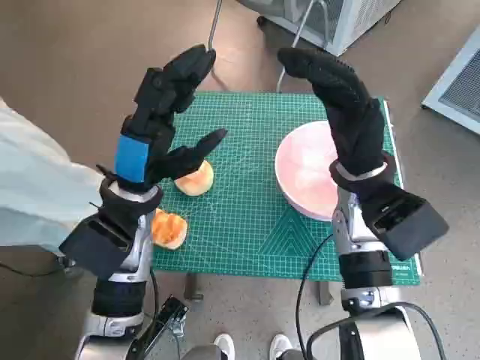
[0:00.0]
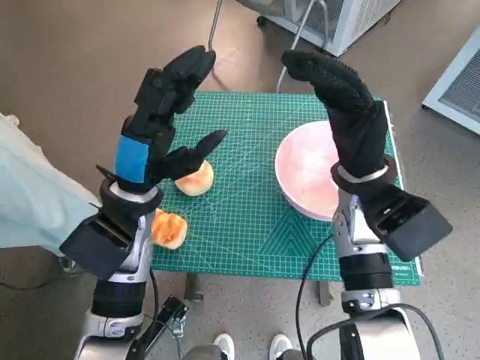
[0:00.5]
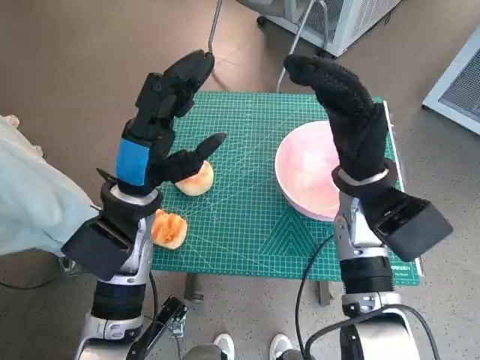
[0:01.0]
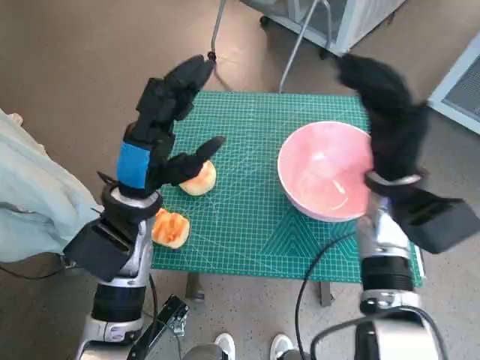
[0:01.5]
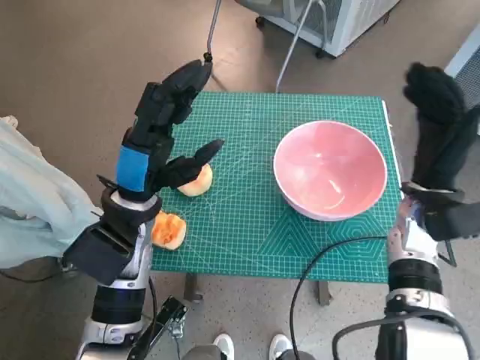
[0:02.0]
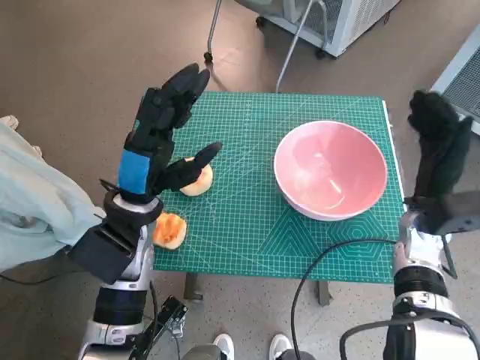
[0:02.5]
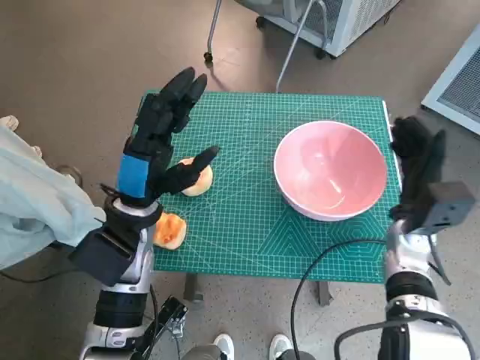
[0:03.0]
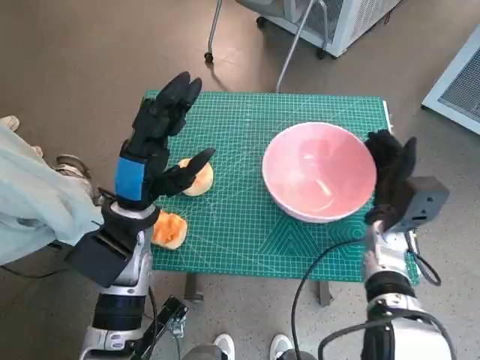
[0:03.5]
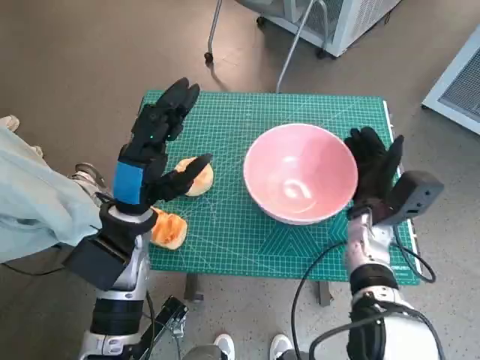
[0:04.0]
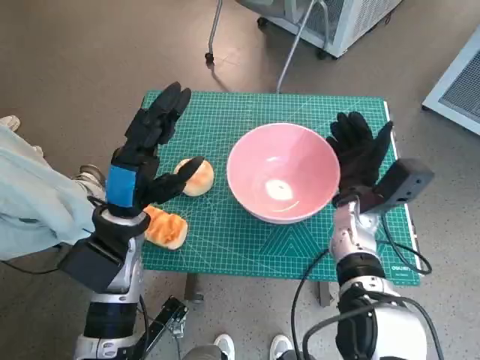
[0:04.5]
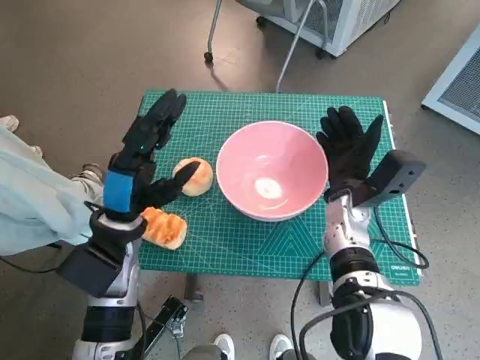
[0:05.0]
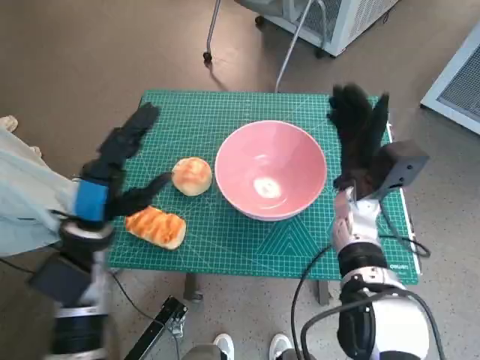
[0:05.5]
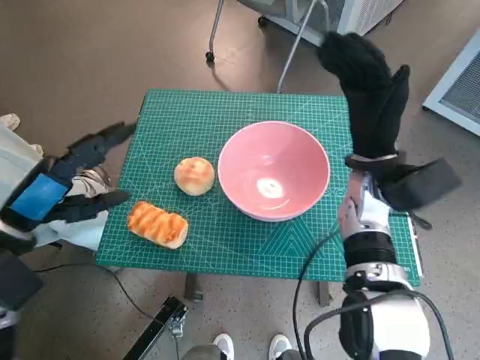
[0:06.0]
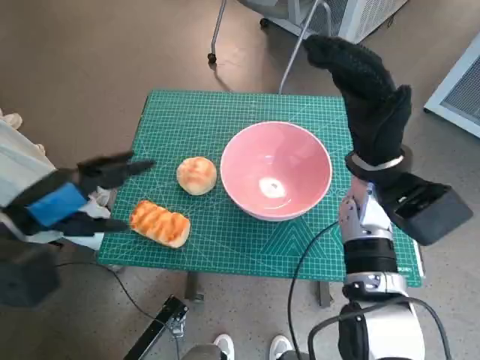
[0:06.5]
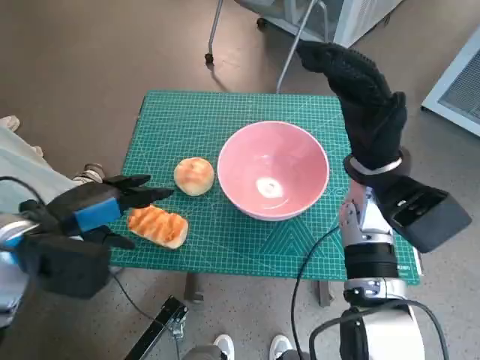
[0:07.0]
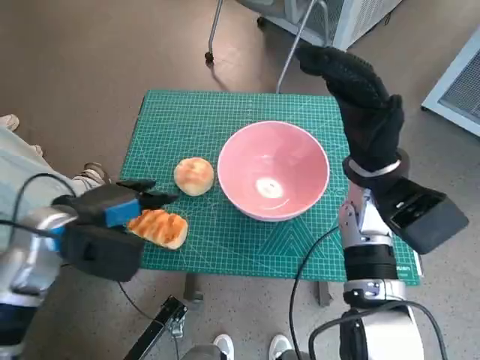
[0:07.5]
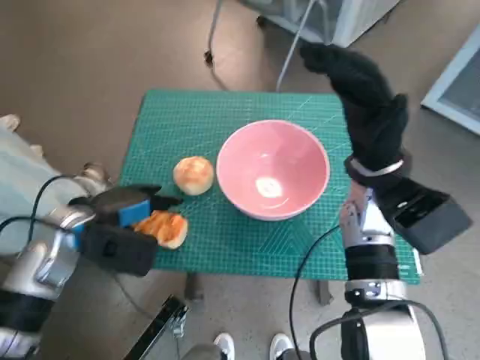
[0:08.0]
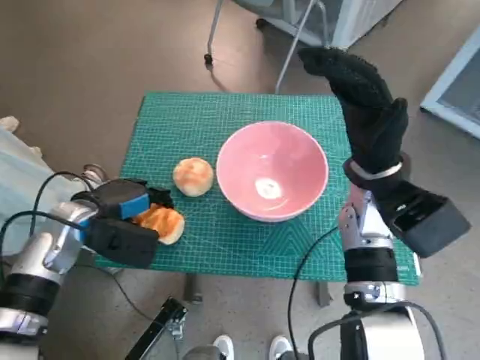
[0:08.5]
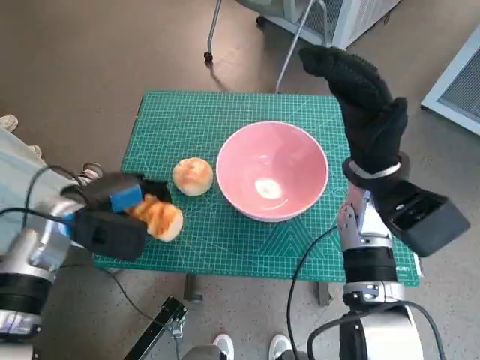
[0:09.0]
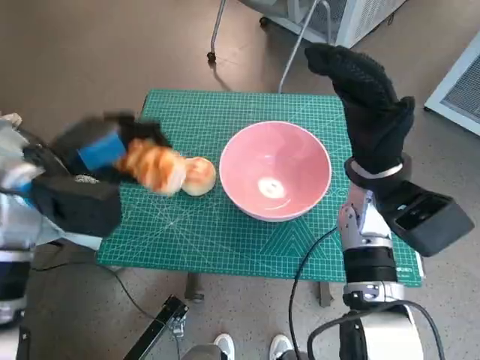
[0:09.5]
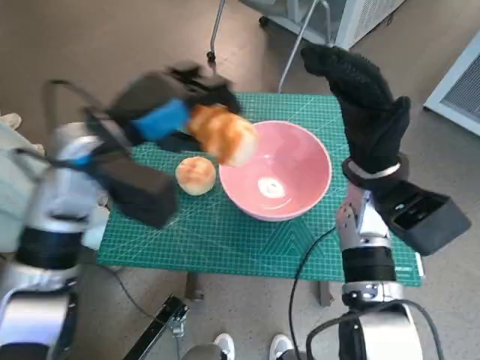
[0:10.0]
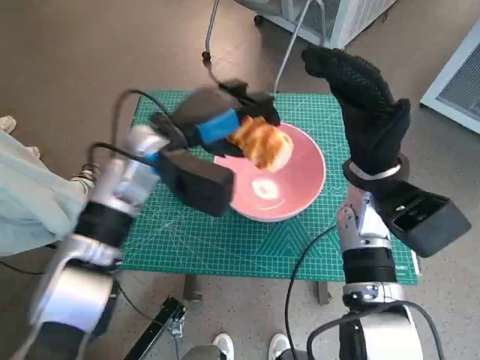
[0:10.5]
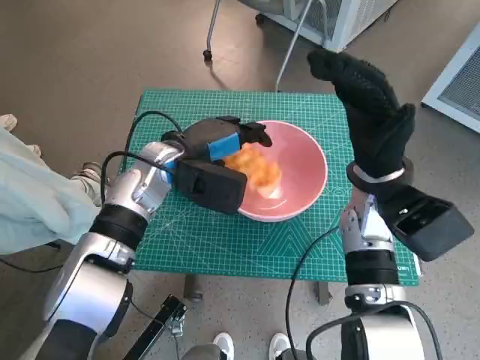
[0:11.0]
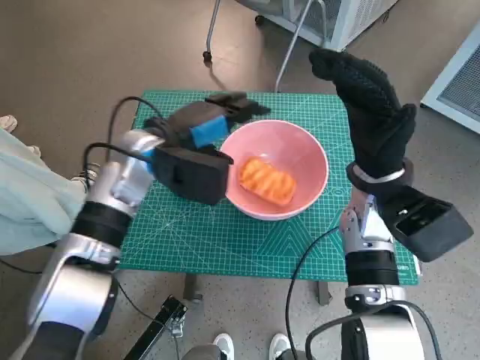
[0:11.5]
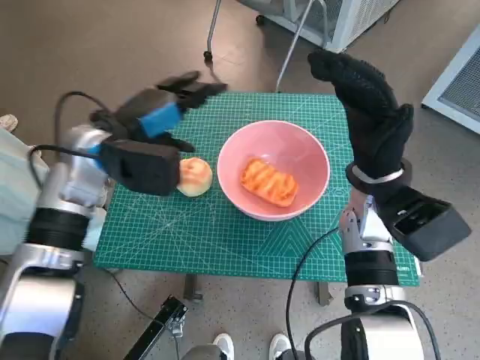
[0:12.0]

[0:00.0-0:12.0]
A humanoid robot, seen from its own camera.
Task of the whole recording: Push the bowl to the center of the table and put the bread into the bowl.
Step, 0:00.0 to 0:05.0: Move the pink bowl to the center of table with right hand.
Step, 0:05.5 to 0:08.0: Grasp the long bread with left hand.
Step, 0:08.5 to 0:11.0: Place the long bread in pink bowl with left hand.
0:02.0 to 0:04.0: The right hand shifts approximately 10 cm downward.
0:04.0 to 0:06.0: The right hand moves upward, approximately 10 cm, while the left hand goes roughly 10 cm to the left.
0:06.0 to 0:08.0: The left hand shifts by some 10 cm.
0:08.0 to 0:10.0: The left hand goes roughly 15 cm upward and to the right.

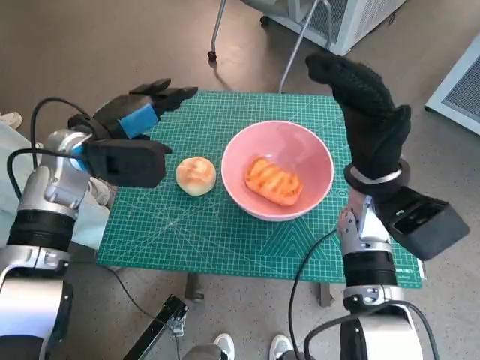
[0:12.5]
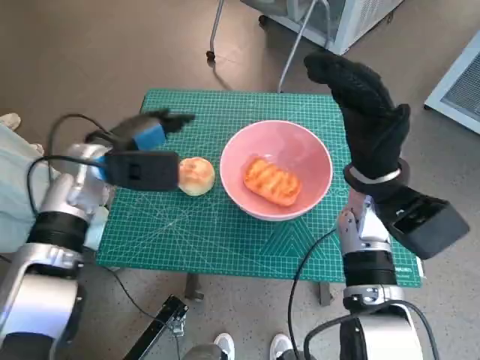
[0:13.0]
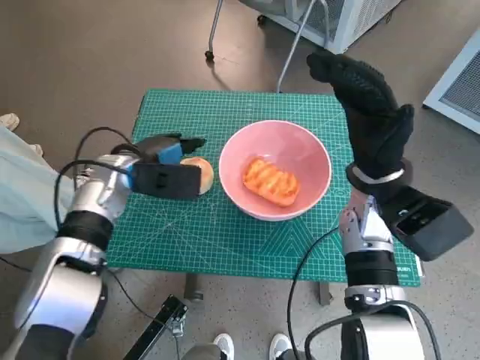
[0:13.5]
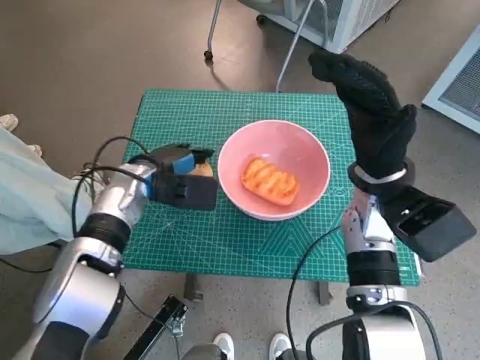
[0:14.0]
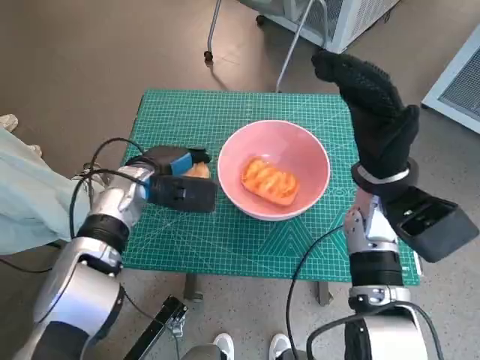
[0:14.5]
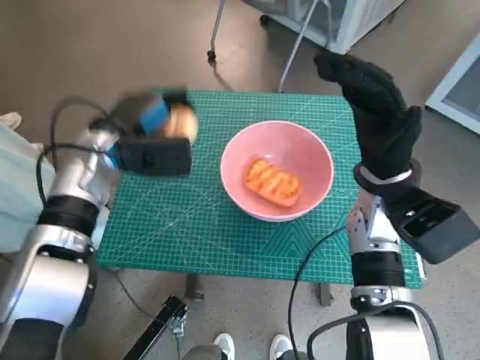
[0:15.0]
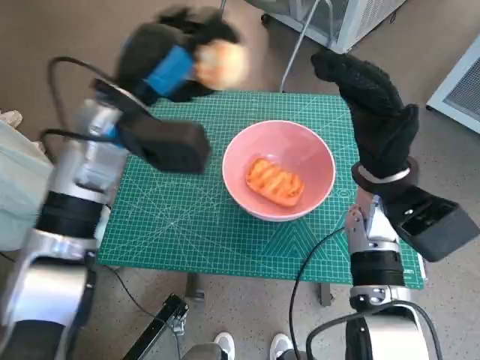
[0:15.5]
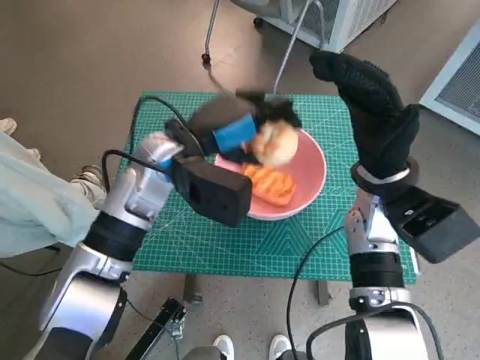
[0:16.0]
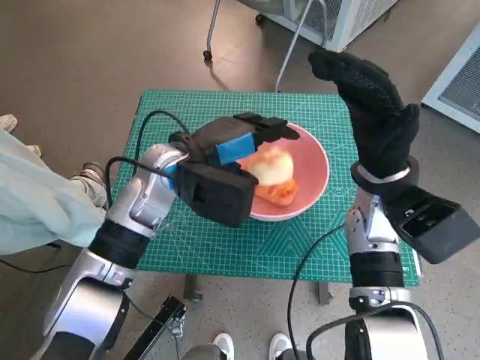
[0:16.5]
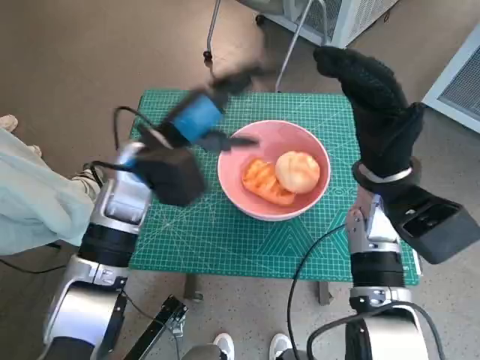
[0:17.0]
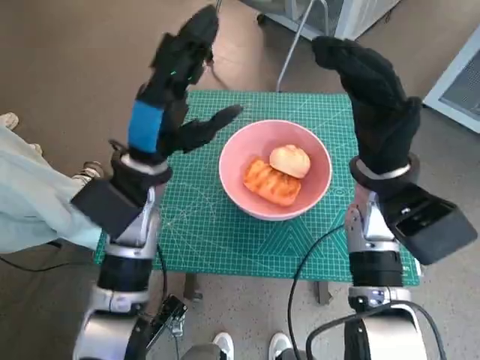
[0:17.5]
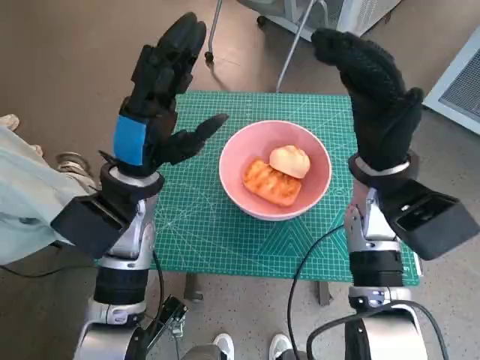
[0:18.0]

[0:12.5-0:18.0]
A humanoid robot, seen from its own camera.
Task of the whole recording: Push the bowl to the center of the table and put the bread into the bowl.
Step, 0:12.5 to 0:14.5: Grasp the round bread with left hand.
Step, 0:15.0 to 0:16.5: Place the round bread in pink bowl with left hand.
0:12.5 to 0:14.5: The left hand is displaced downward by roughly 10 cm.
0:14.5 to 0:16.0: The left hand is displaced upward and to the right by about 10 cm.
0:16.0 to 0:18.0: The left hand moves roughly 5 cm.

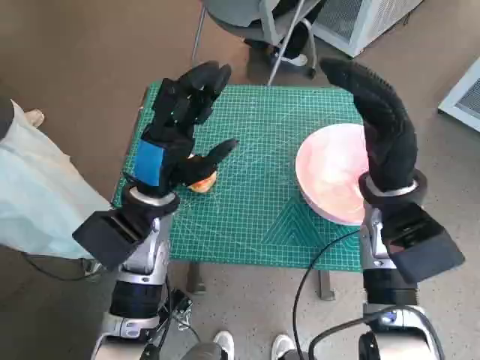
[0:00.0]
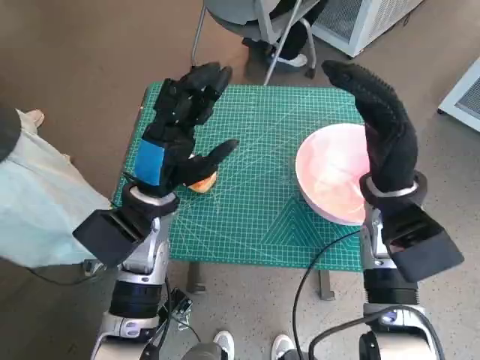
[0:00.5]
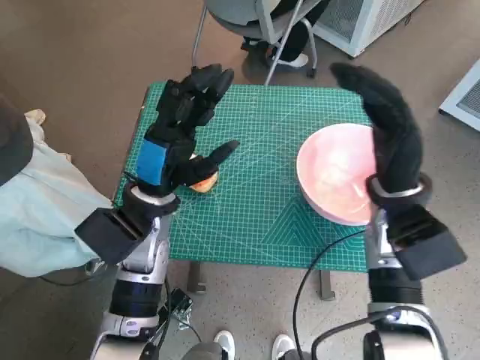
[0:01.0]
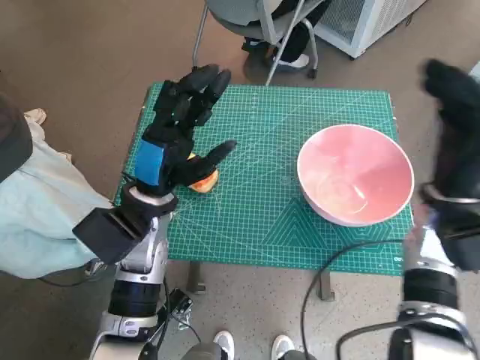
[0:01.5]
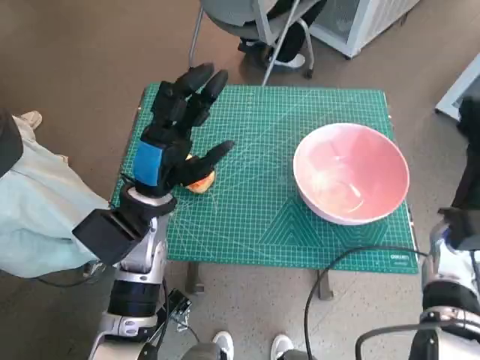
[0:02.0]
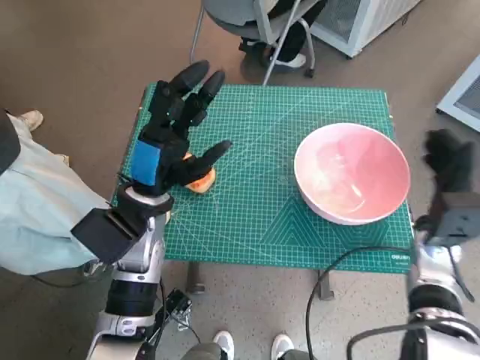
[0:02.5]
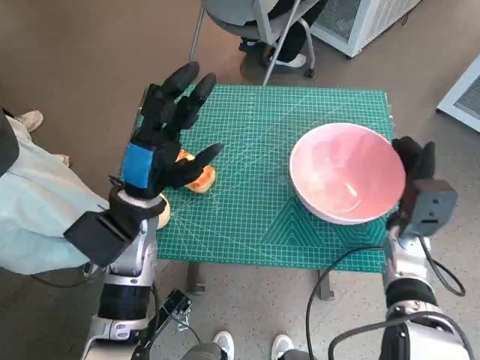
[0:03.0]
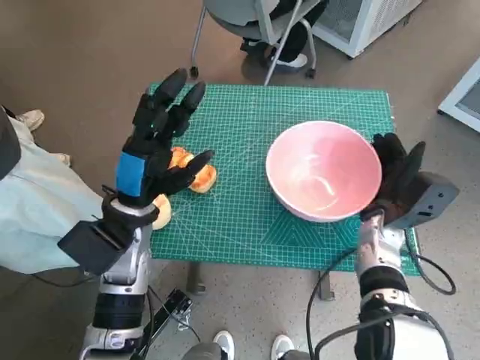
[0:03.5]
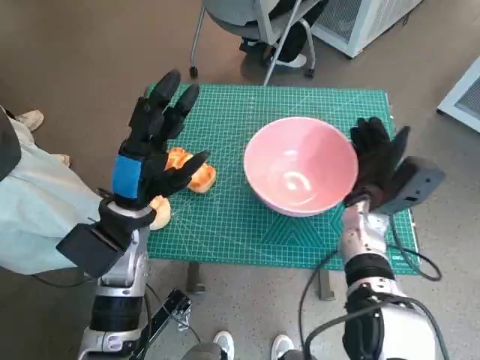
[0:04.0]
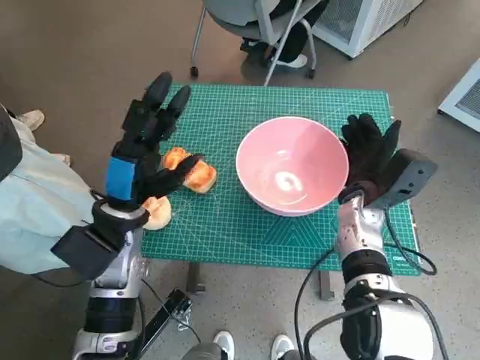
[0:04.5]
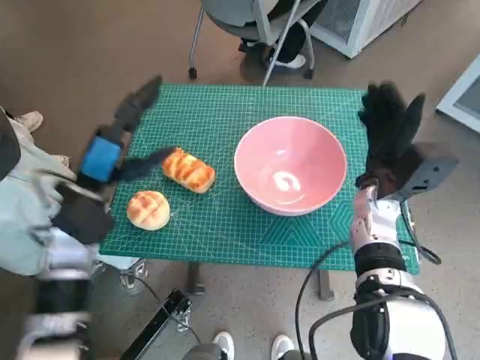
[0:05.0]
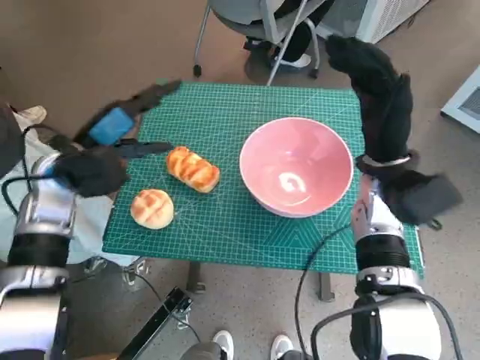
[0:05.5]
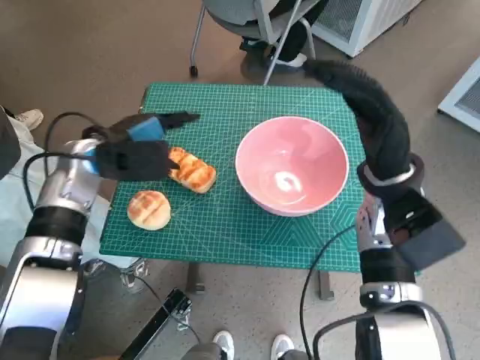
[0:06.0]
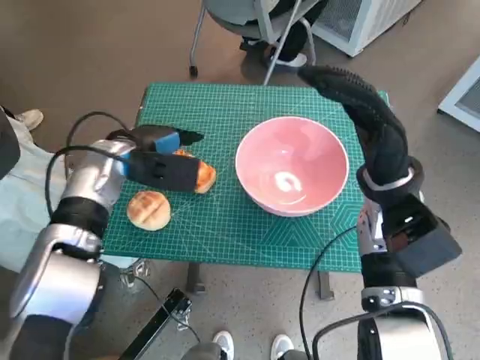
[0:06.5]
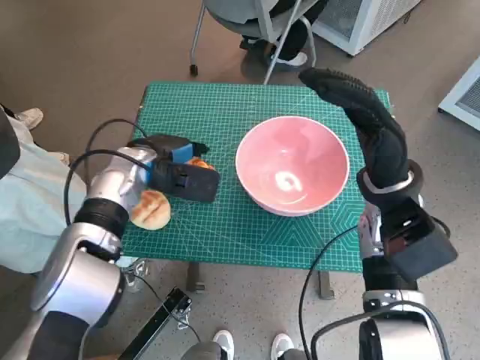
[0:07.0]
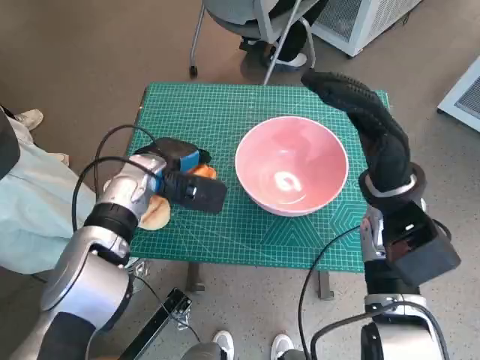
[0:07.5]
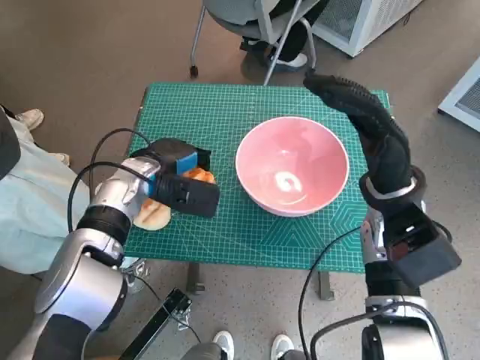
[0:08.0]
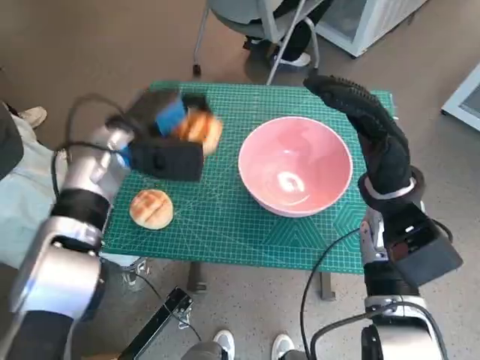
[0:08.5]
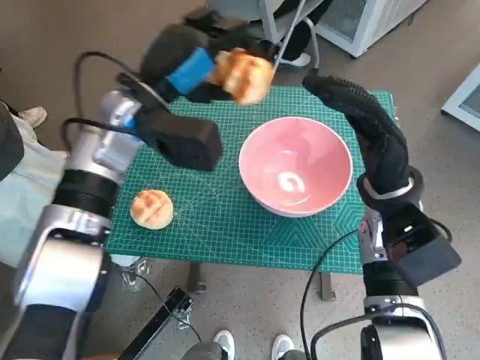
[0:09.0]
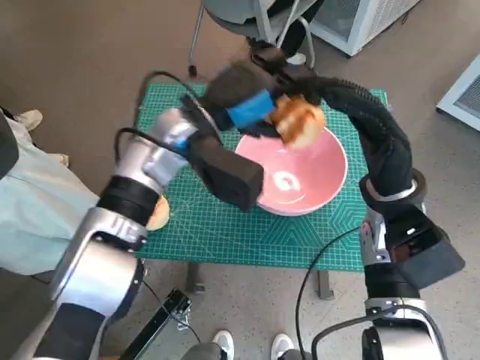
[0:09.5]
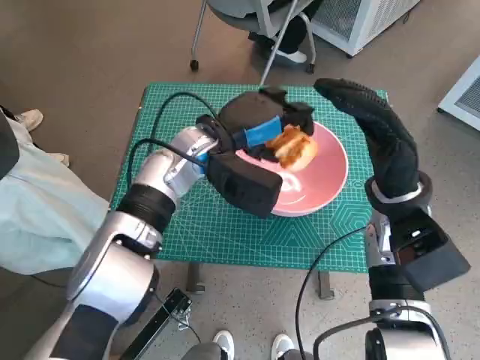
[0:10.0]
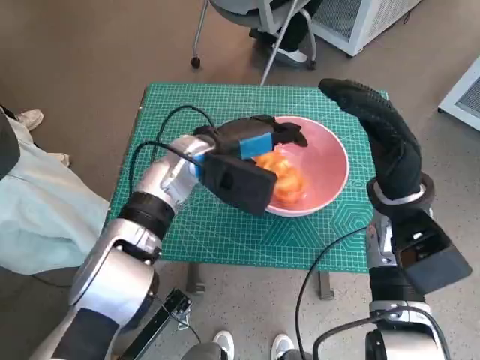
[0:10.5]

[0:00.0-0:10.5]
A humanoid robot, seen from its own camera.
Task of the whole recording: Push the bowl to the center of the table and put the bread into the bowl.
Step, 0:00.0 to 0:04.5: Move the pink bowl to the center of table with right hand.
Step, 0:05.0 to 0:08.0: Grasp the long bread with left hand.
Step, 0:08.5 to 0:10.0: Place the long bread in pink bowl with left hand.
0:02.0 to 0:04.0: The right hand goes approximately 10 cm to the left.
0:04.0 to 0:06.5: The left hand travels forward by approximately 10 cm. The right hand heads upward, covering approximately 10 cm.
0:08.5 to 0:10.5: The left hand goes roughly 10 cm to the right.
